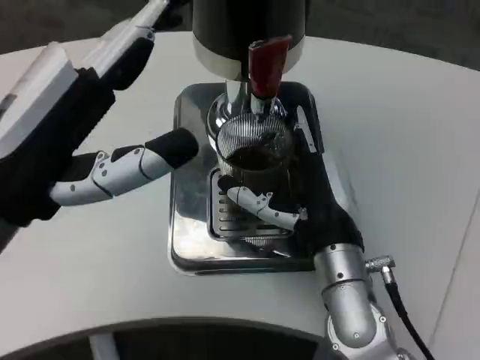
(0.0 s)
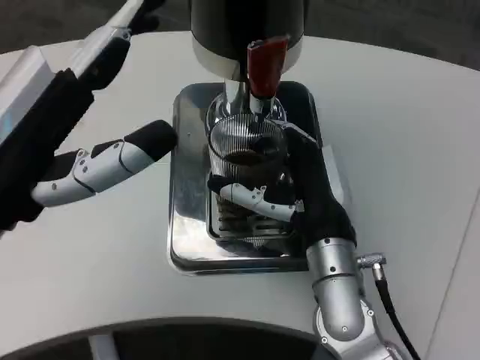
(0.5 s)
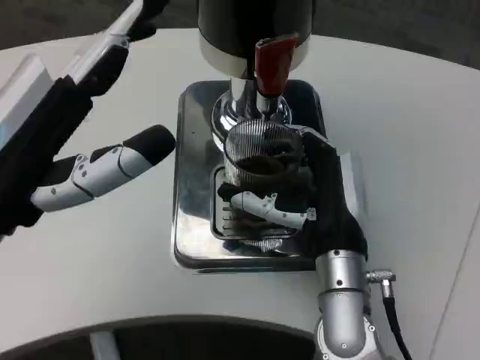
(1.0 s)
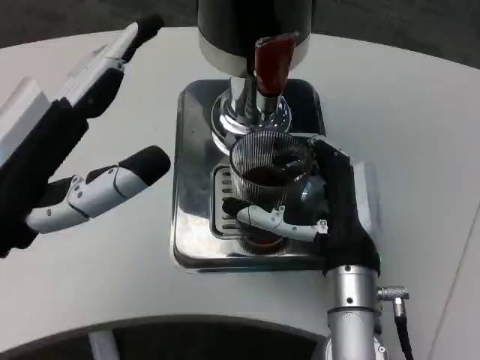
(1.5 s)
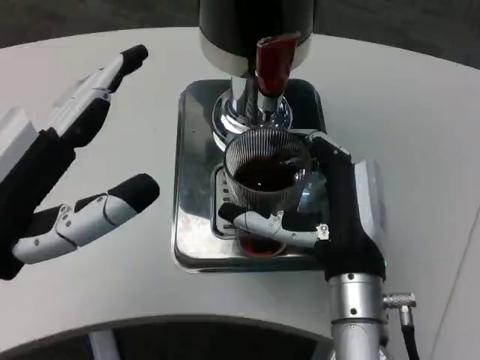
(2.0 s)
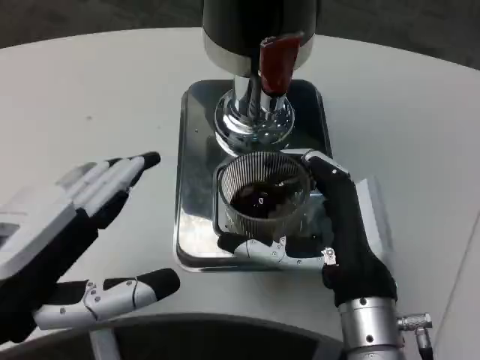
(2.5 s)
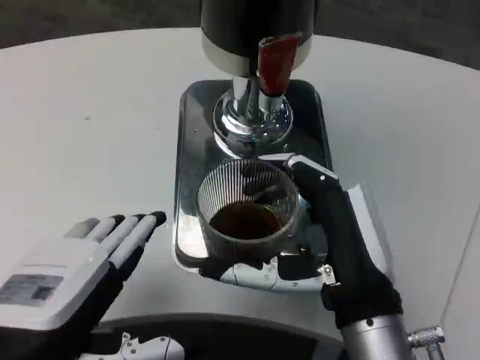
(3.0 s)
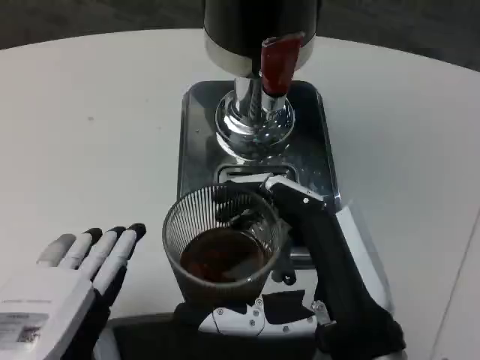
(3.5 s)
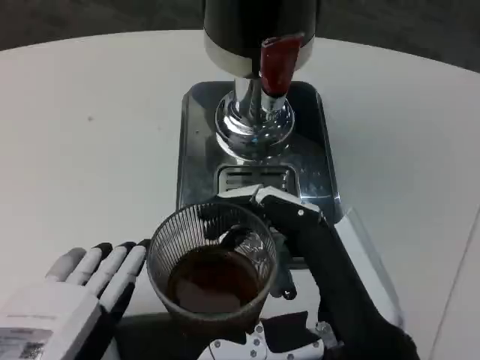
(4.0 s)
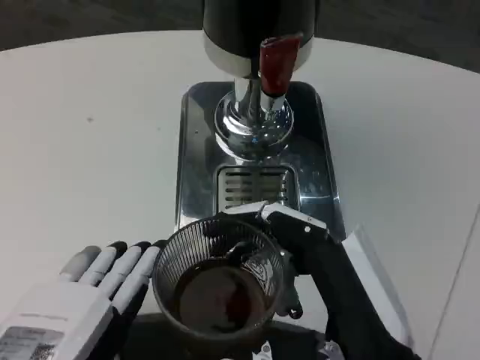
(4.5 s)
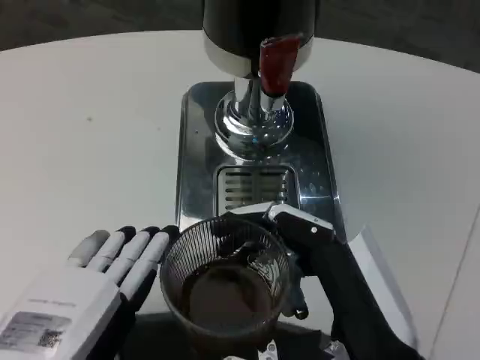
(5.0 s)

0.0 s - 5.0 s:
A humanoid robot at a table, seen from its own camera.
Task of the whole recording: Grasp the cup under the faucet to collect the drink, then remove the cup.
0.0 s - 2.5 s: The two hands go some 5 cm backward.
2.5 s - 5.0 s: The left hand is displaced backward by some 5 cm. Meanwhile the right hand goes some 10 cm backward.

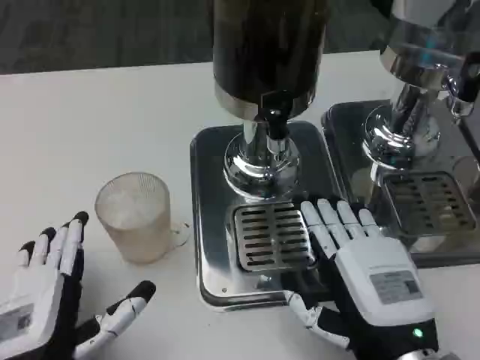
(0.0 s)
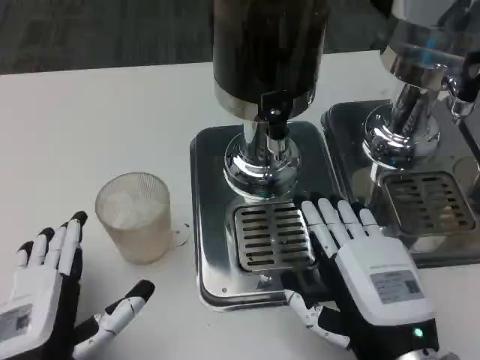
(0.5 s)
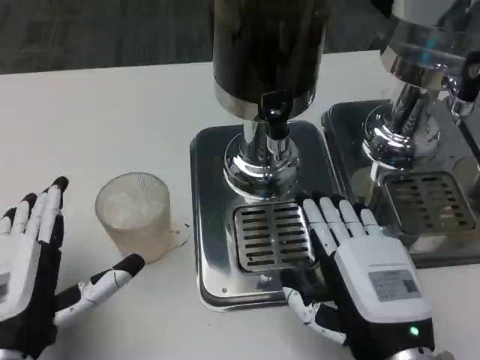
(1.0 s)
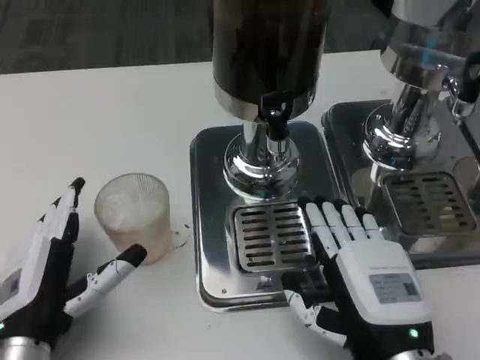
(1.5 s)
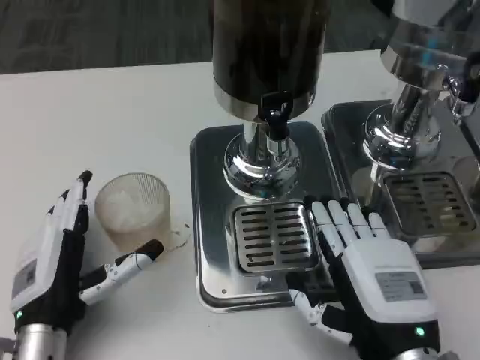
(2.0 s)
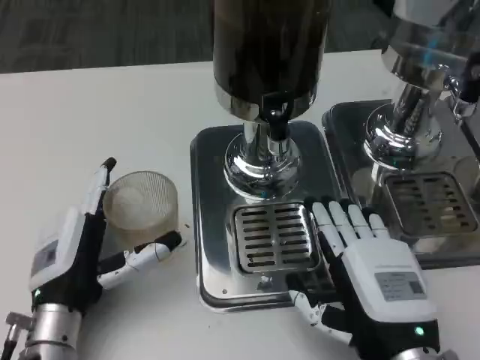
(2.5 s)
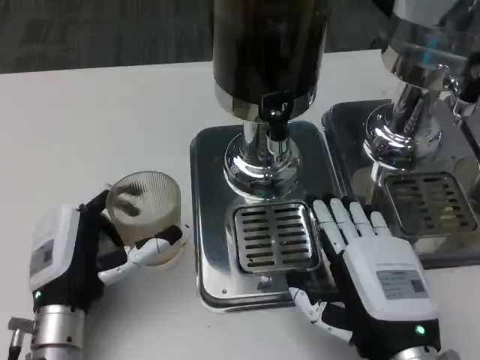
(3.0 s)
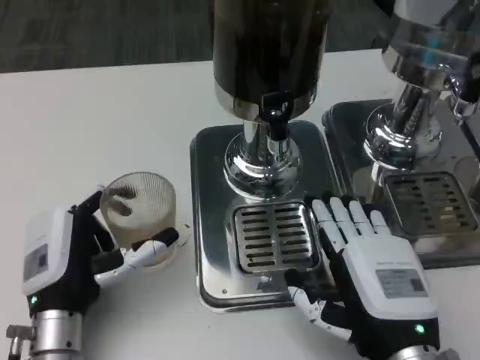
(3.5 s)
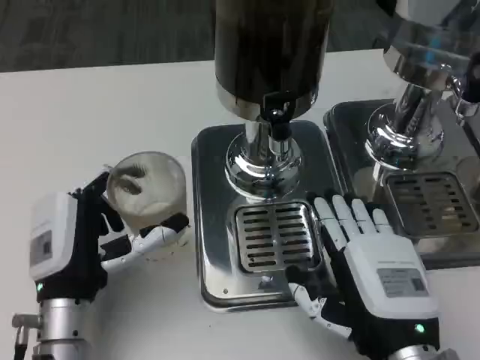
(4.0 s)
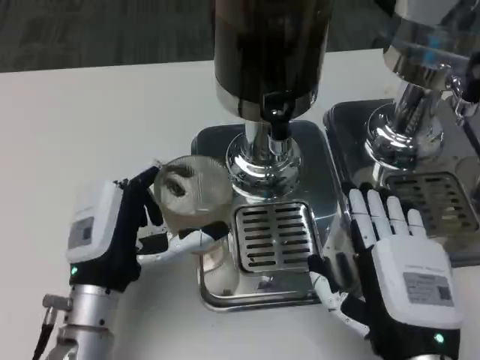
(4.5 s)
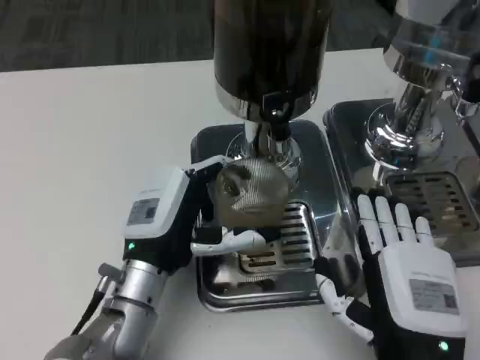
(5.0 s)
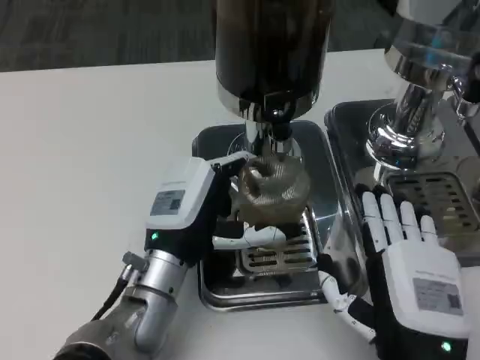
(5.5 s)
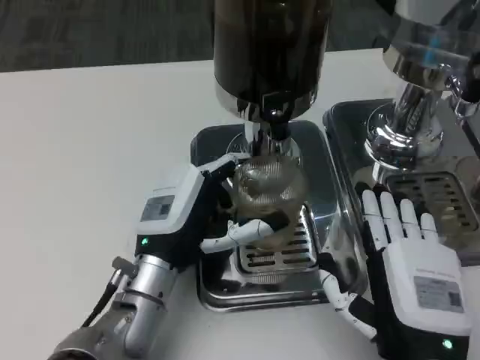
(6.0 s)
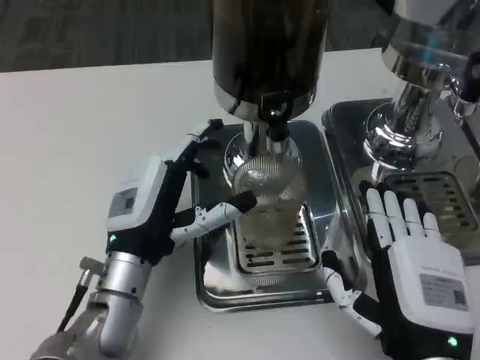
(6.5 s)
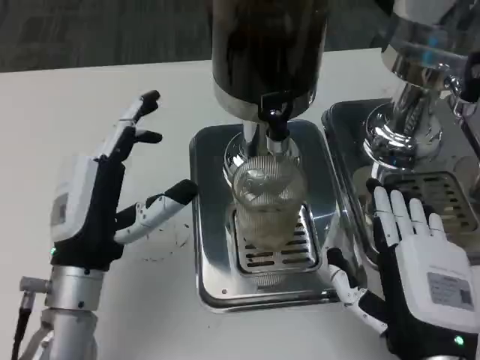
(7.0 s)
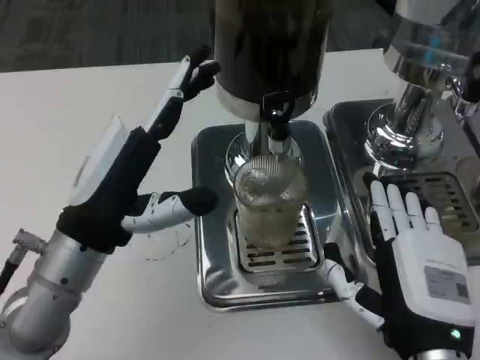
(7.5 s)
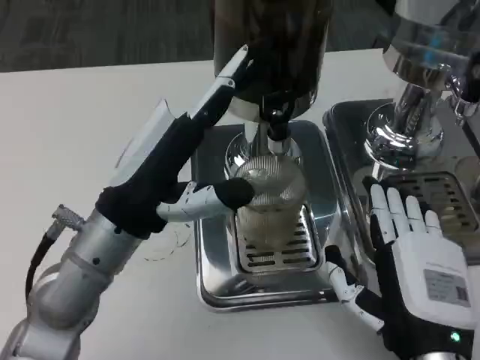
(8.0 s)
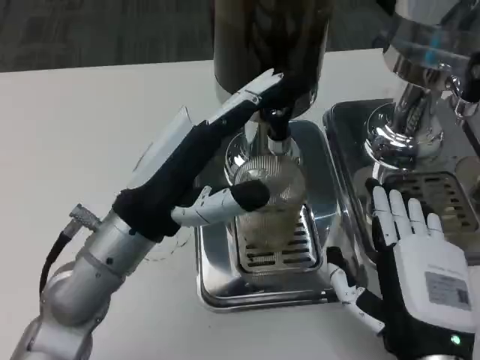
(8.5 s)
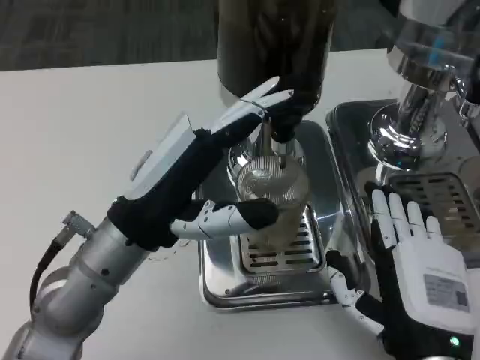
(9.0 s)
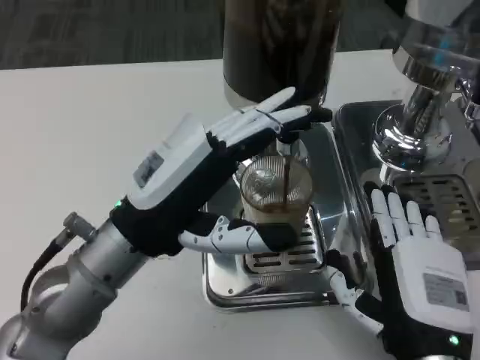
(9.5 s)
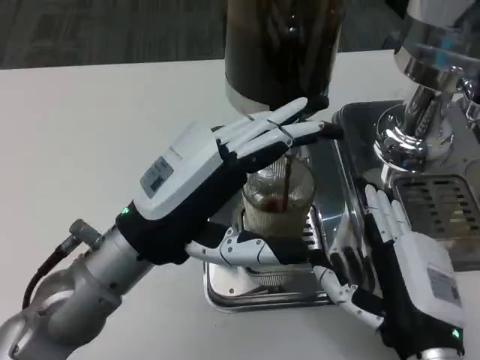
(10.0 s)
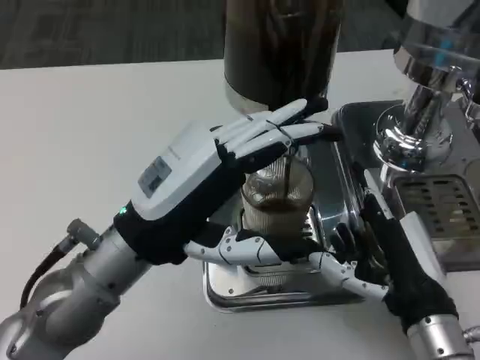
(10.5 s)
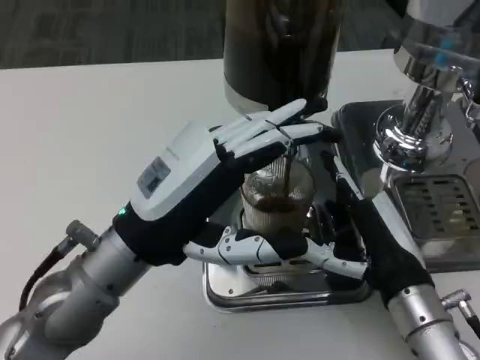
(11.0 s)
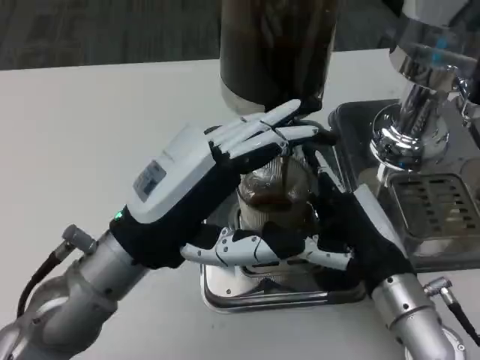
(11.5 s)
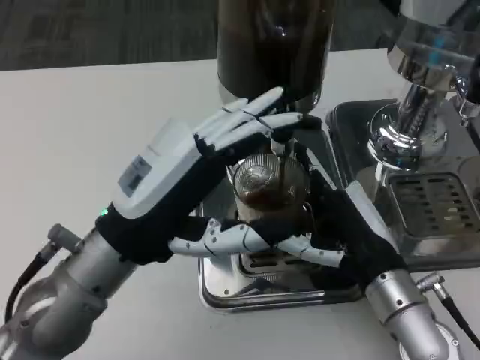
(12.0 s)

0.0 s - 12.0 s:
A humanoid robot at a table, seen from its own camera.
Task of the whole recording: Grasp the cup under the faucet to collect the drink, then remove the cup.
0.0 s - 2.0 s: The left hand heads forward, covering some 5 cm.
4.0 s - 6.0 s: The left hand travels to the right by about 5 cm.
6.0 s - 8.0 s: The left hand is displaced upward by some 10 cm.
10.0 s - 12.0 s: The right hand moves forward, some 10 cm.

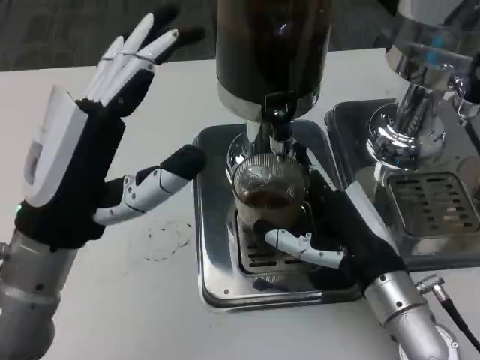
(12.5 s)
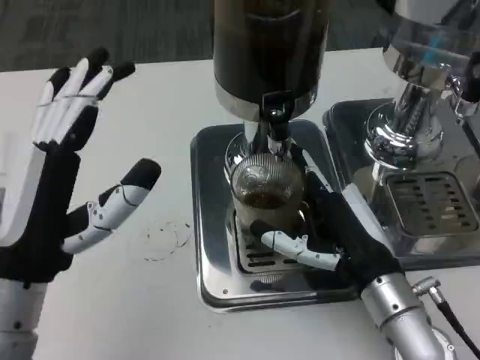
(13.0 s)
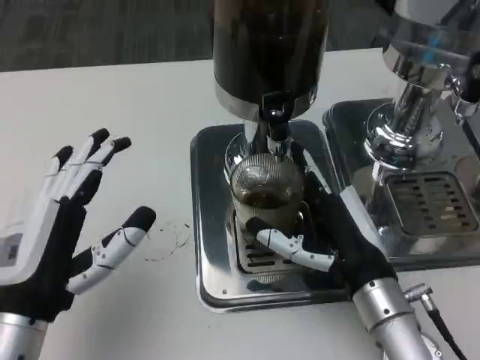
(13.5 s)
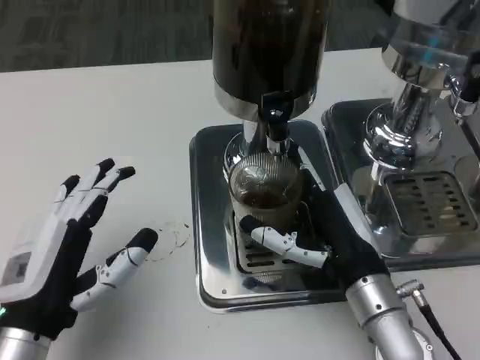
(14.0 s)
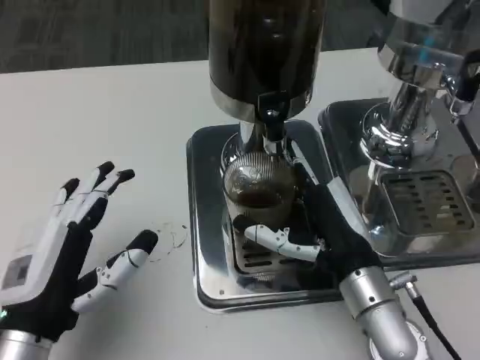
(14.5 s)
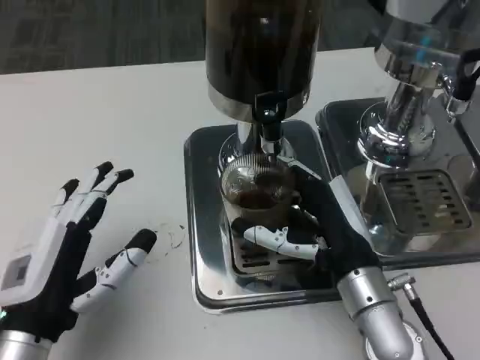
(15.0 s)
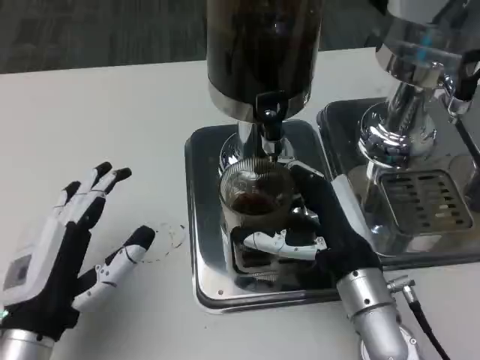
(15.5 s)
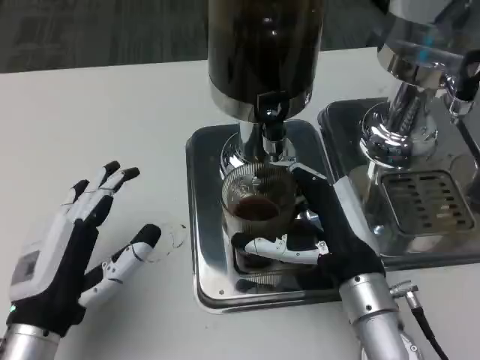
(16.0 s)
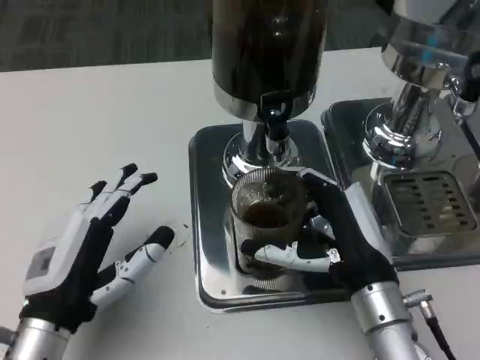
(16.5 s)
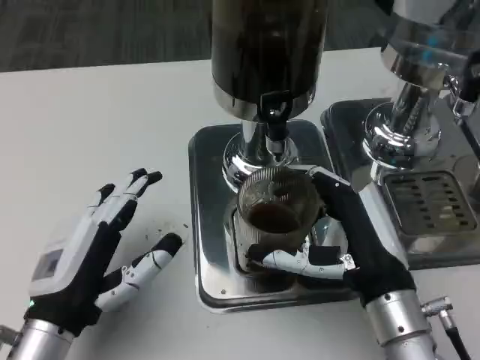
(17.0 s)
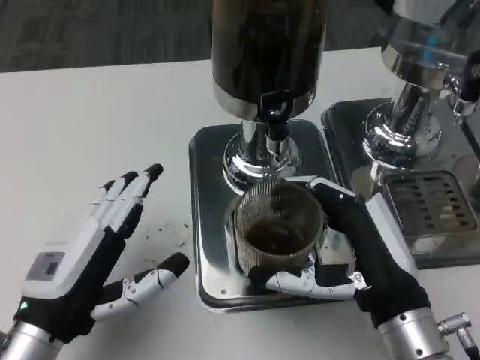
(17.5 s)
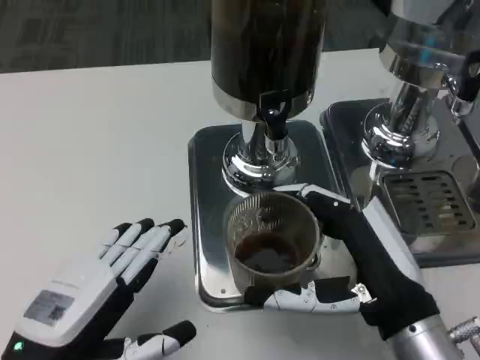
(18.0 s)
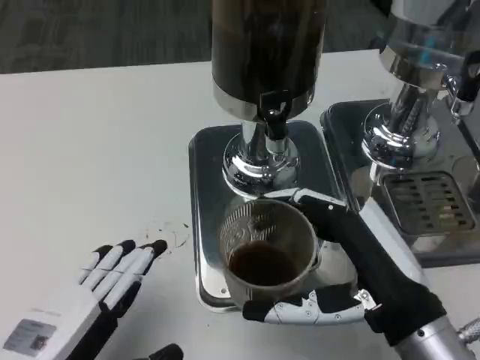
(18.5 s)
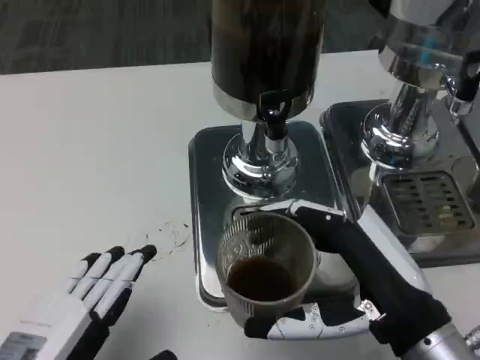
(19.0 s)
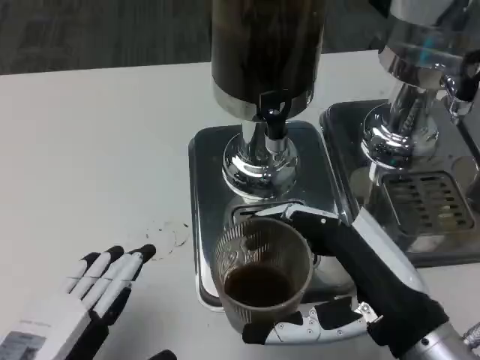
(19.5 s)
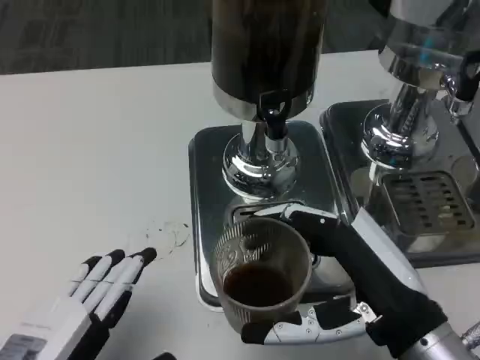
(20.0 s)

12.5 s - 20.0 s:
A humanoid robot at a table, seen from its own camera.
Task of the whole recording: Grasp the cup under the faucet to collect the drink, then remove the cup.
12.5 s - 14.5 s: The left hand heads downward and backward, covering some 10 cm.
16.5 s - 18.0 s: The left hand ends up some 5 cm from where it was. The right hand goes about 5 cm backward.

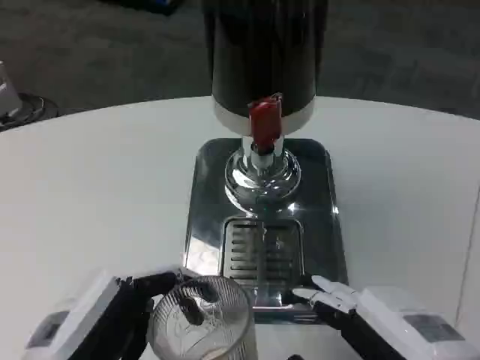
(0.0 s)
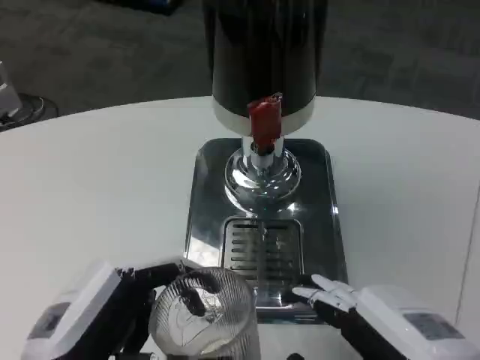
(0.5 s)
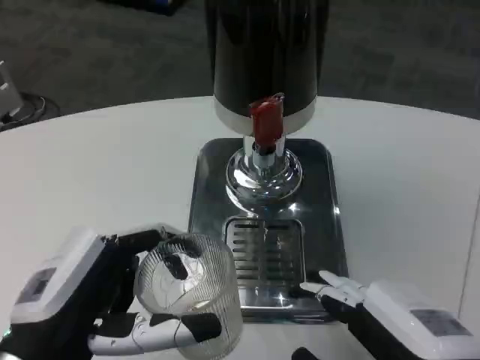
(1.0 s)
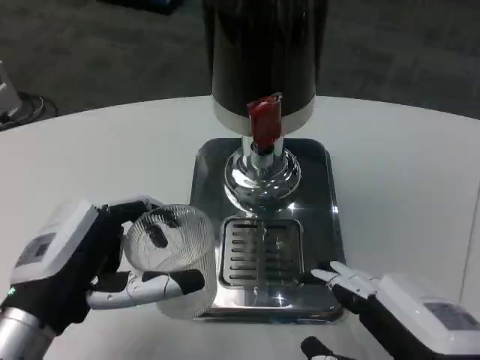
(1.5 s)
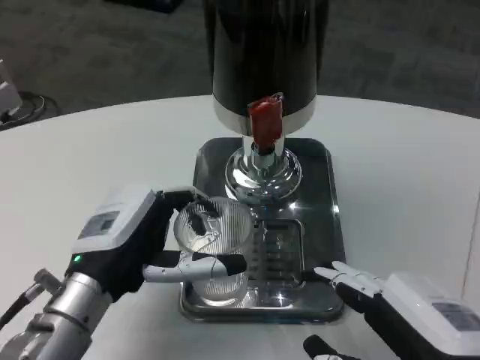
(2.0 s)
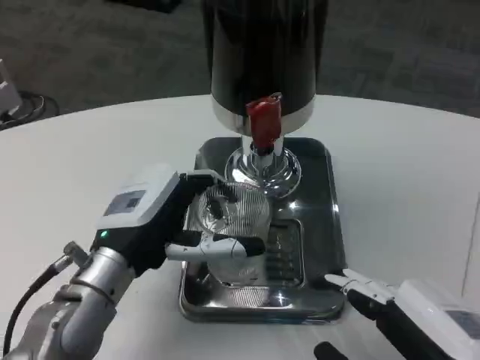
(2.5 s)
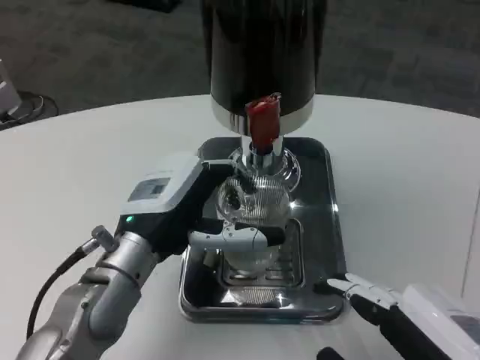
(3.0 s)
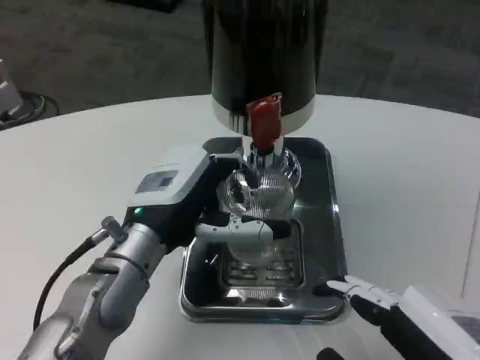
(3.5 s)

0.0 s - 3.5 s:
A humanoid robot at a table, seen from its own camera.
Task of the whole recording: Grasp the cup under the faucet to collect the drink, then remove the cup.
0.0 s - 2.0 s: The left hand heads forward, covering about 15 cm.
2.0 s - 3.5 s: The left hand changes place by about 5 cm.
